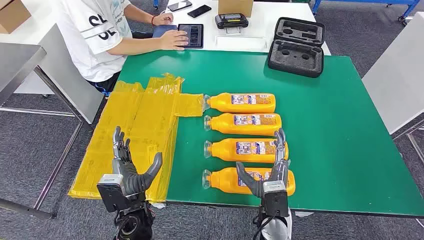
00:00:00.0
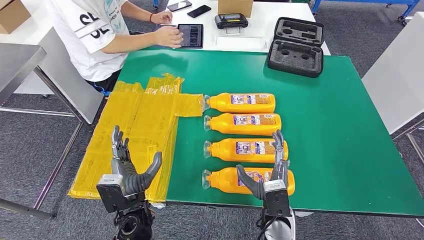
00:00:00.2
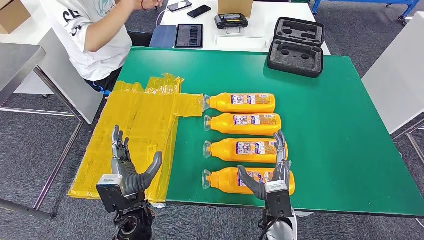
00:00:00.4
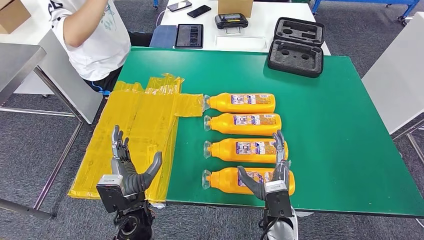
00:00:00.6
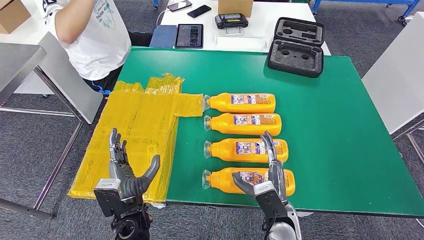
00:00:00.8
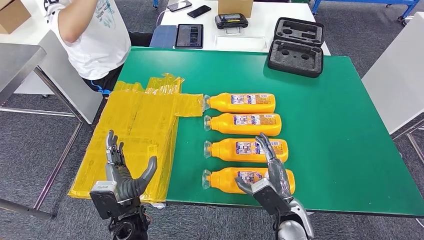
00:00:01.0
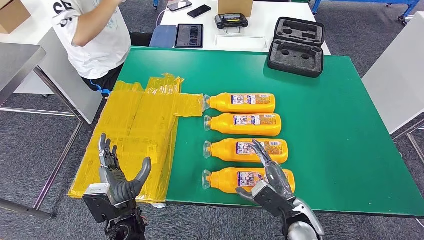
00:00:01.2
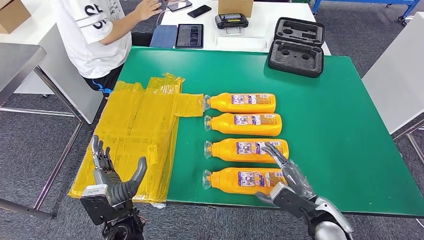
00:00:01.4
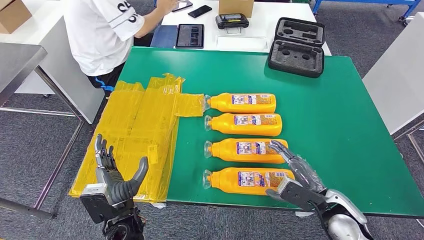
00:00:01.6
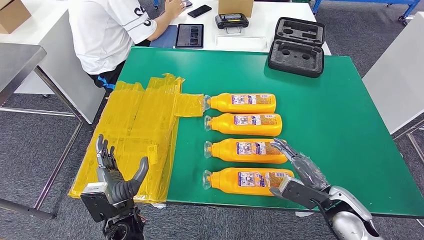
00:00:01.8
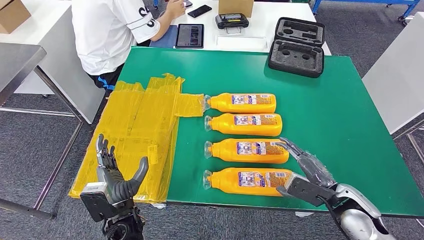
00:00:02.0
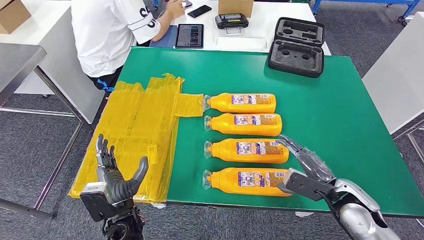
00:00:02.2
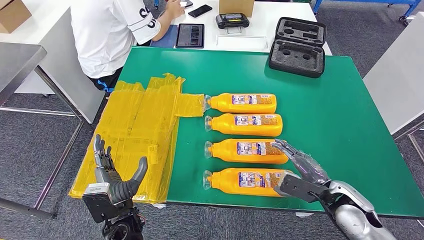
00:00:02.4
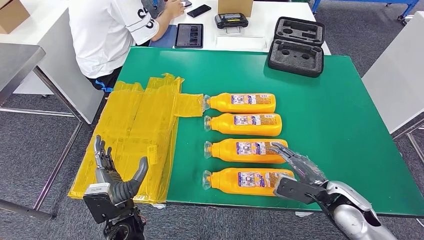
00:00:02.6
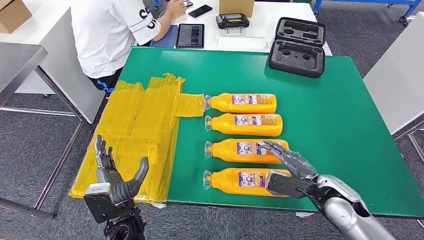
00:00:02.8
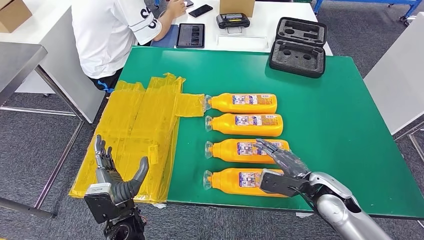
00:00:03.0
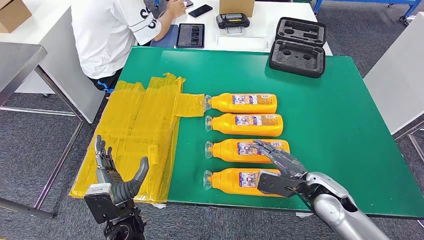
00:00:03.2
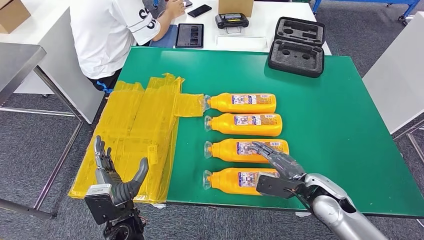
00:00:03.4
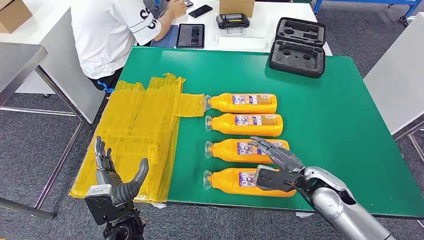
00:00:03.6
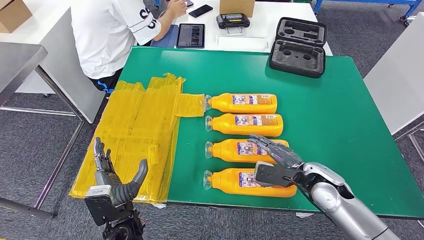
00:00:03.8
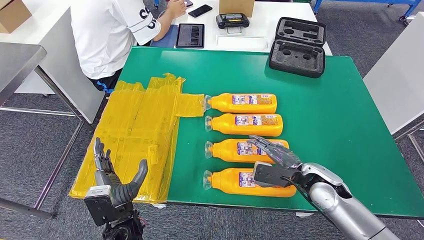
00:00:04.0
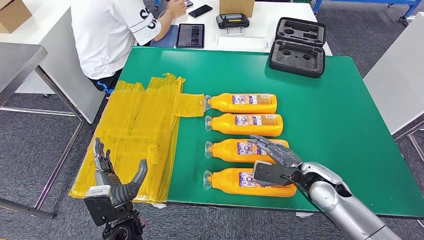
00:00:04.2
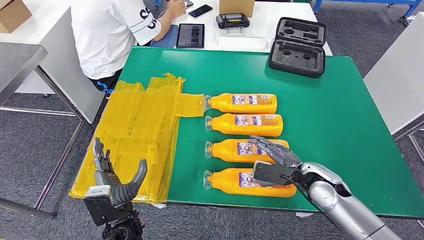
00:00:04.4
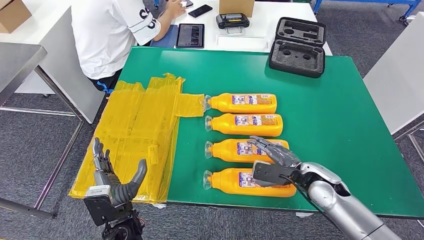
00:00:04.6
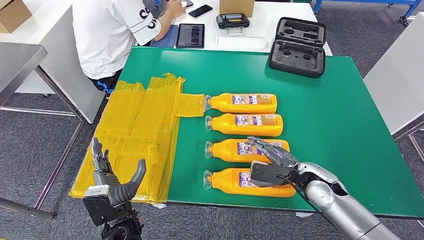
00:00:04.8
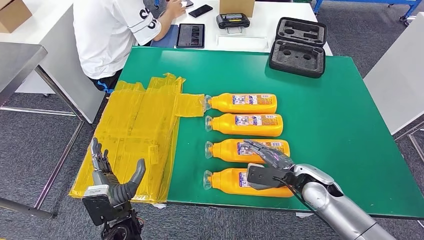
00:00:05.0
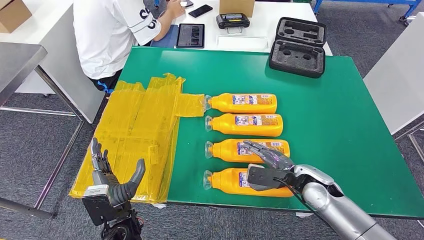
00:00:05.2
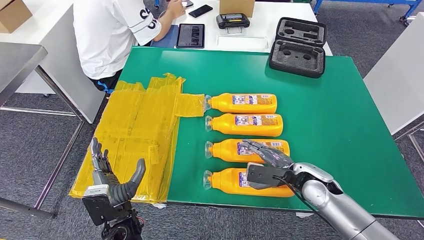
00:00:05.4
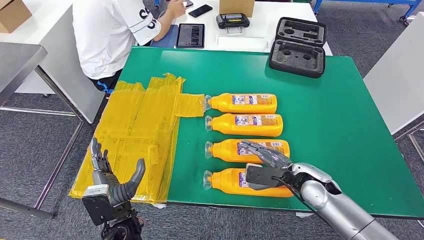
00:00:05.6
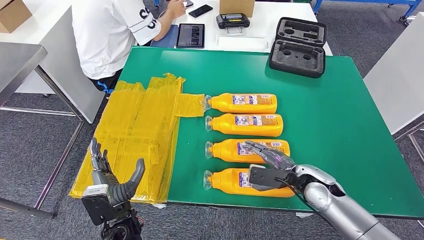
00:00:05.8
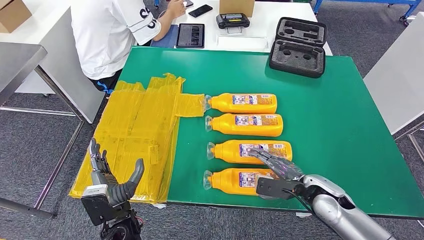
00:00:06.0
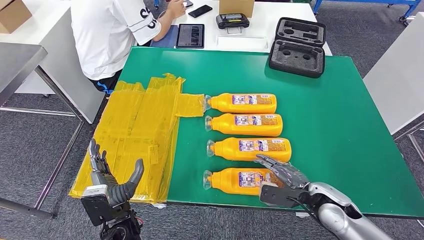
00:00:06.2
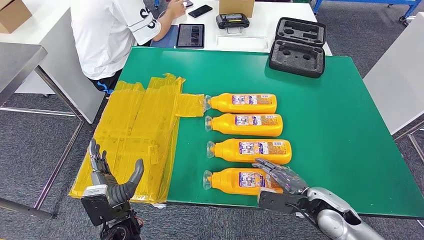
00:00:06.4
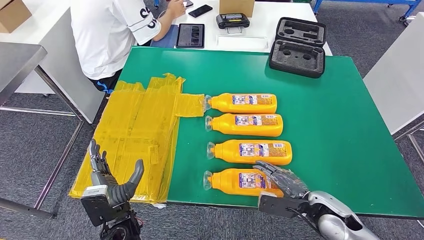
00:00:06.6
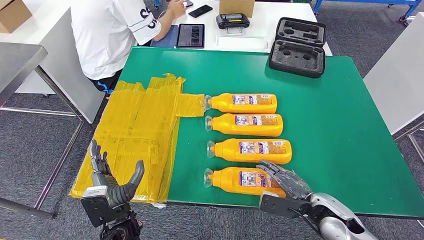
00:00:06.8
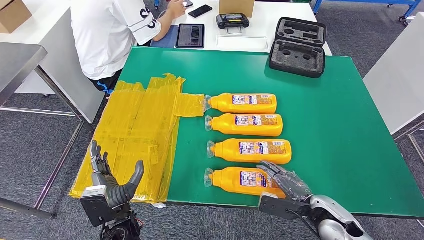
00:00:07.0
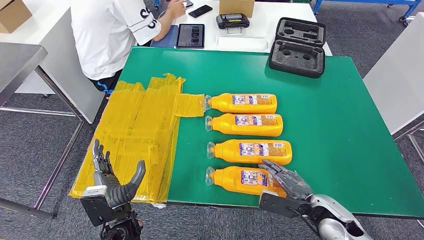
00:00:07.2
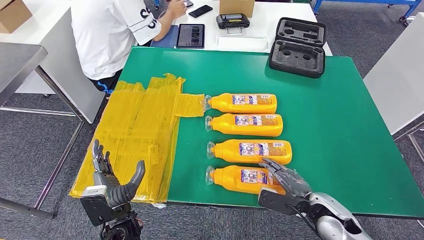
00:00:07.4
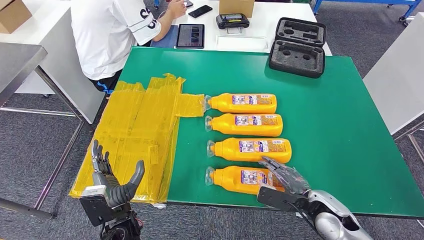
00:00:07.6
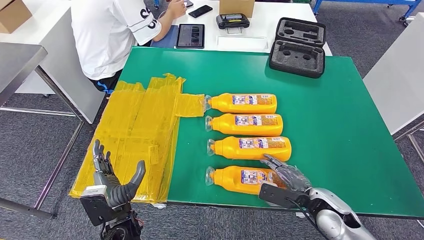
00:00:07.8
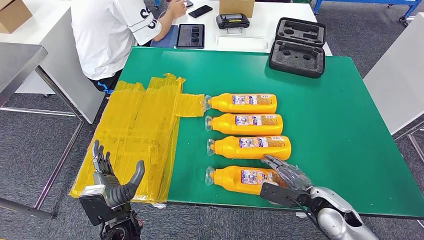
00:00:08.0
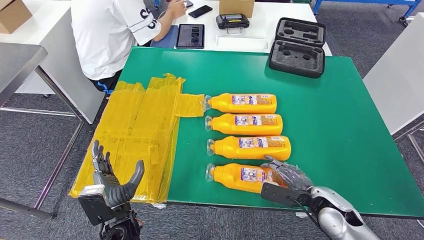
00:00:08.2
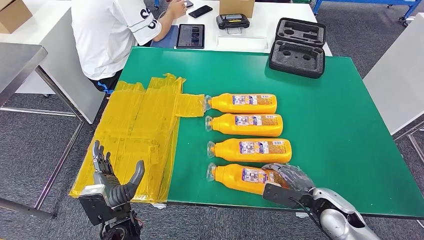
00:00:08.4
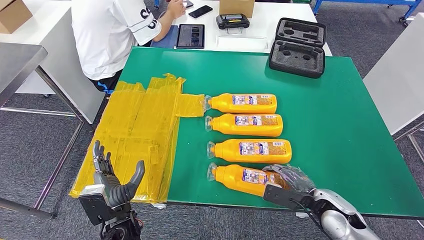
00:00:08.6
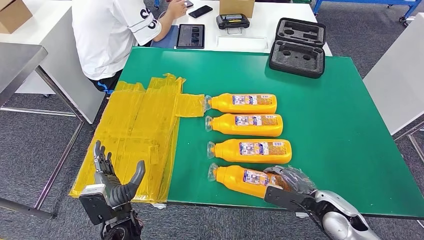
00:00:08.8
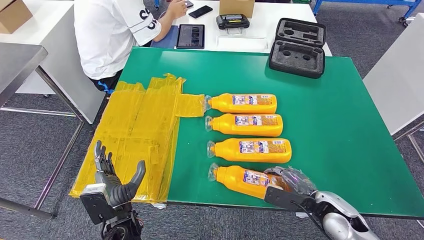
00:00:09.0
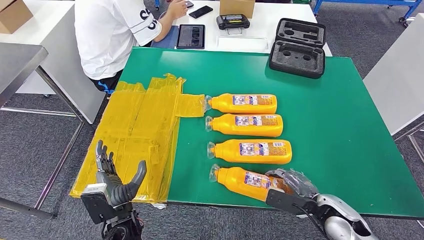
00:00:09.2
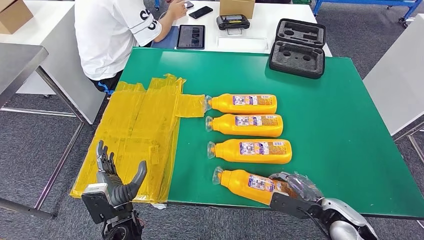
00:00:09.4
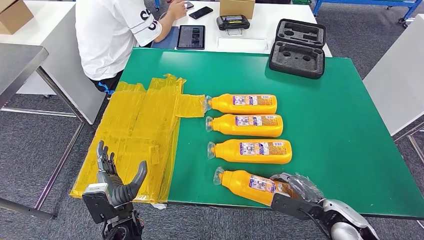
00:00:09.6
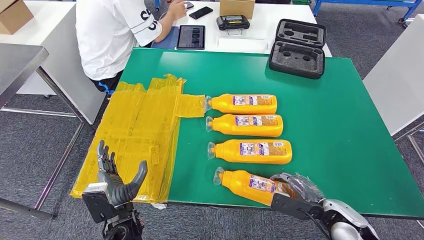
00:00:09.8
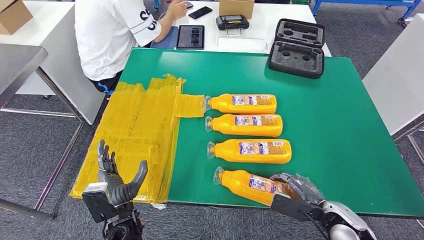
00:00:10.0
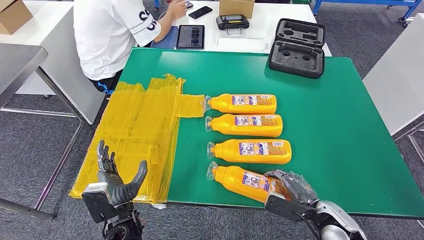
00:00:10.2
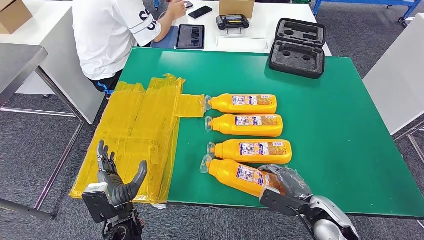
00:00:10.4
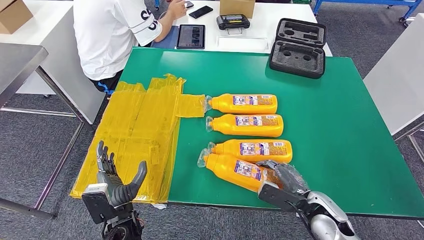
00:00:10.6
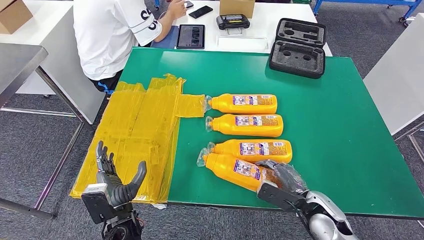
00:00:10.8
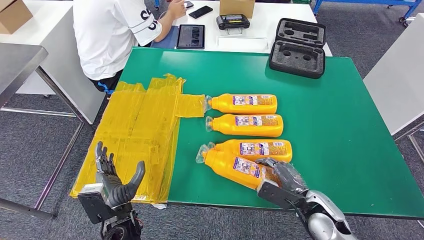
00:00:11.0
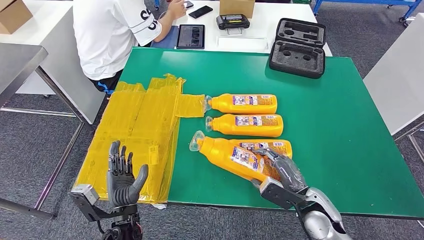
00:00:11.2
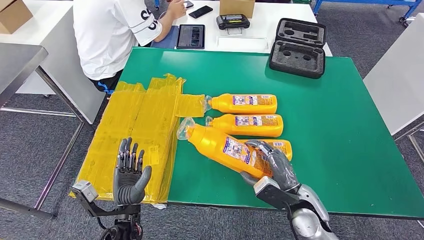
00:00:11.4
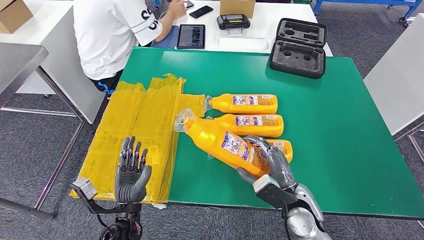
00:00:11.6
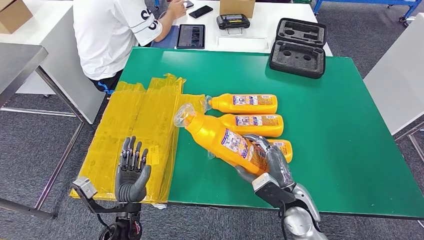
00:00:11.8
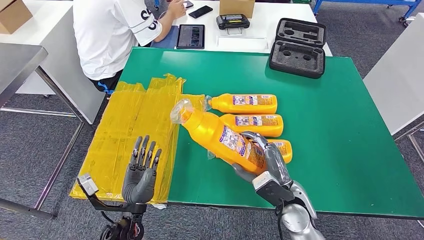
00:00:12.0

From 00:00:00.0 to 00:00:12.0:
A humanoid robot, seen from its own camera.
From 00:00:01.6 to 00:00:03.0: There are only small adjustments of the hands.
From 00:00:03.0 to 00:00:09.0: There are only small adjustments of the hands.
From 00:00:09.0 to 00:00:10.4: The hands move only a little.
From 00:00:10.4 to 00:00:12.0: The right hand goes about 10 cm to the left.

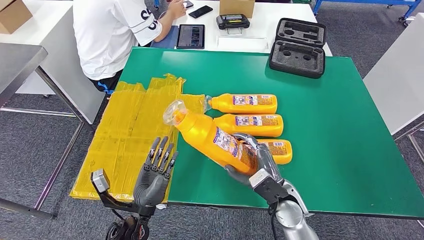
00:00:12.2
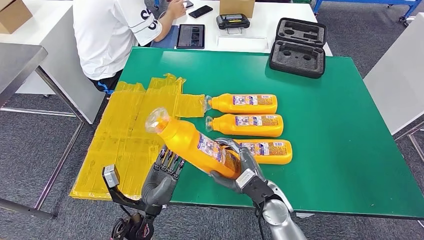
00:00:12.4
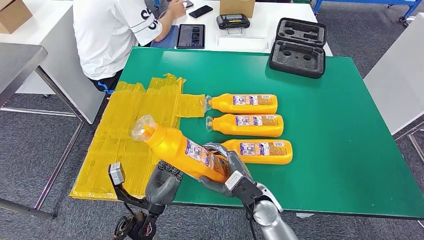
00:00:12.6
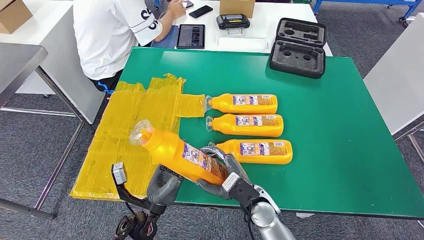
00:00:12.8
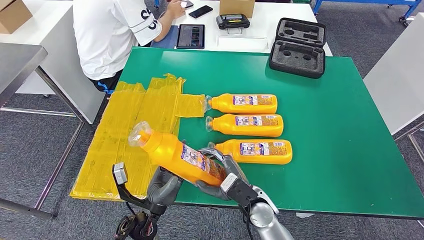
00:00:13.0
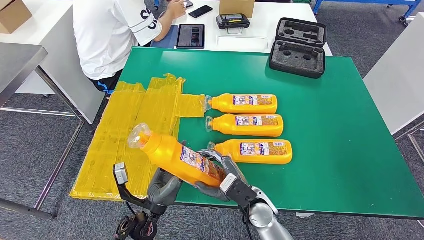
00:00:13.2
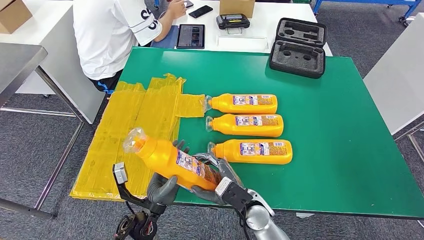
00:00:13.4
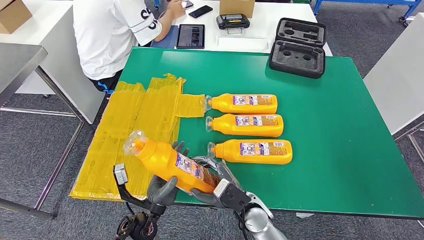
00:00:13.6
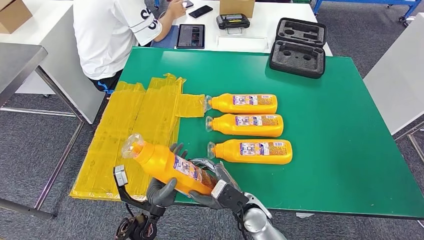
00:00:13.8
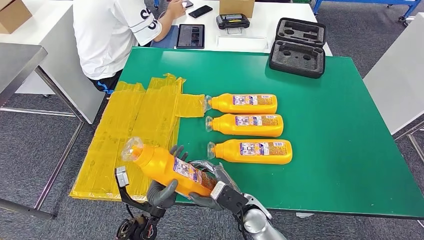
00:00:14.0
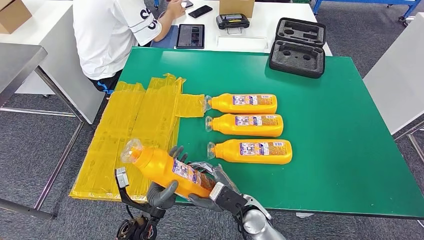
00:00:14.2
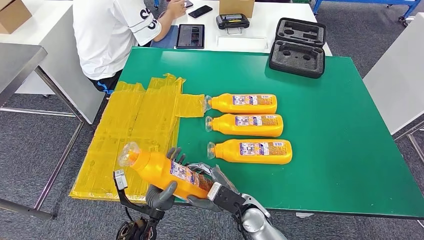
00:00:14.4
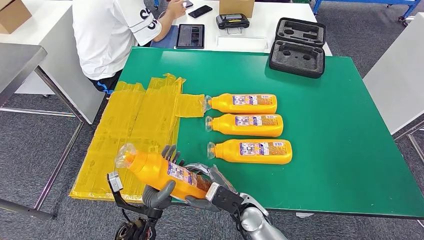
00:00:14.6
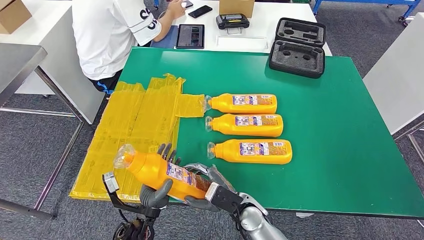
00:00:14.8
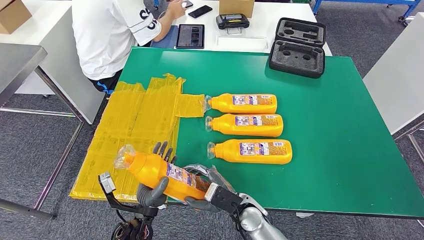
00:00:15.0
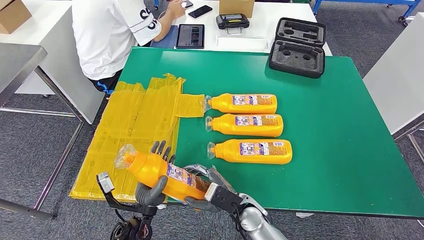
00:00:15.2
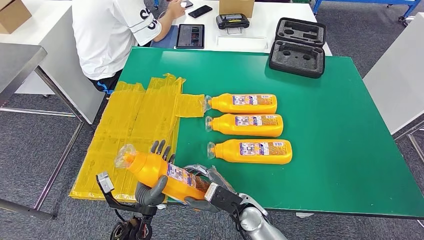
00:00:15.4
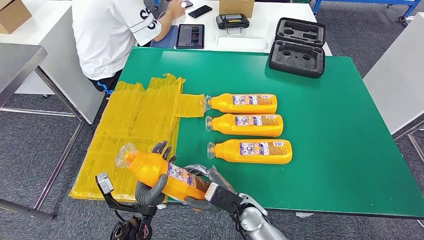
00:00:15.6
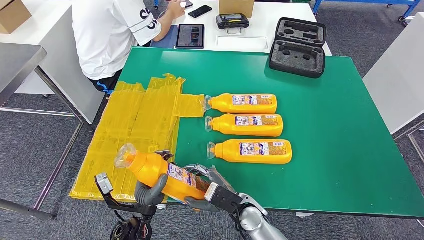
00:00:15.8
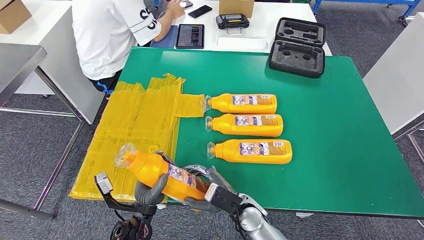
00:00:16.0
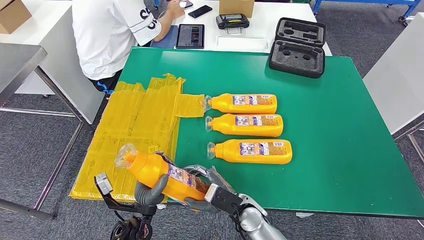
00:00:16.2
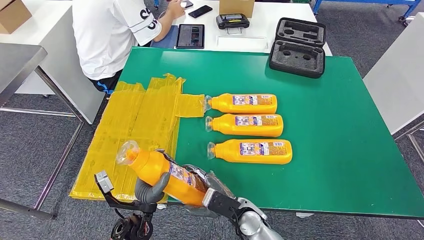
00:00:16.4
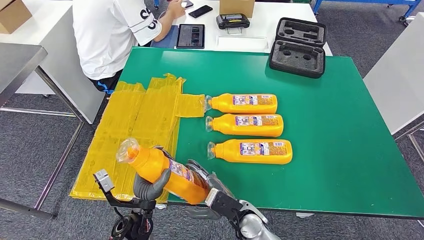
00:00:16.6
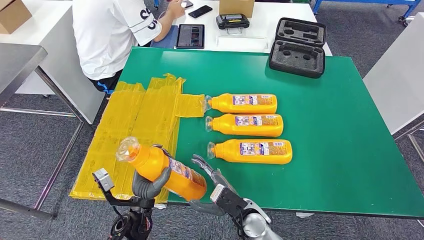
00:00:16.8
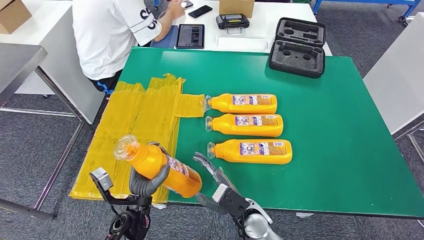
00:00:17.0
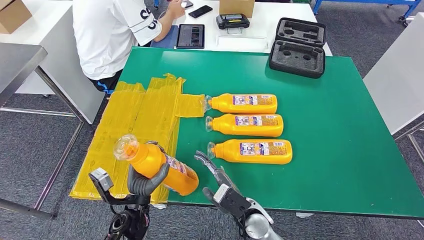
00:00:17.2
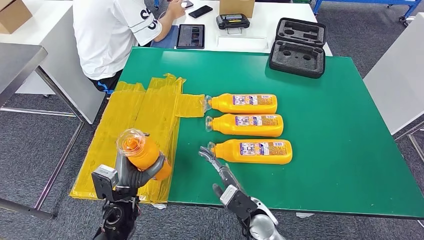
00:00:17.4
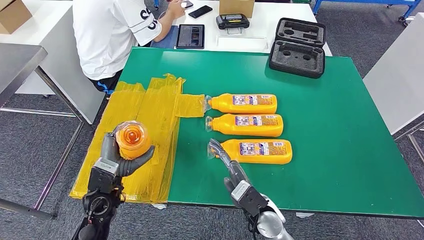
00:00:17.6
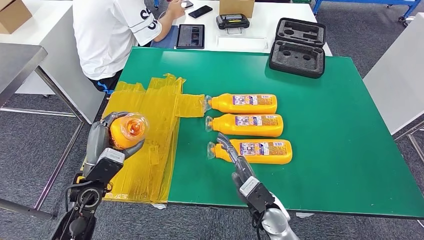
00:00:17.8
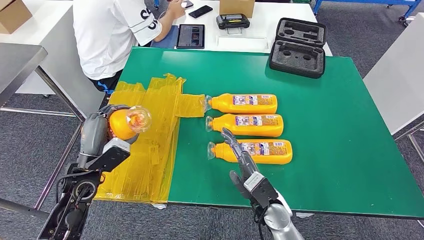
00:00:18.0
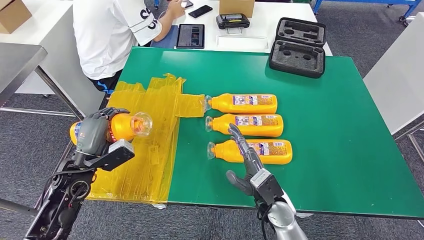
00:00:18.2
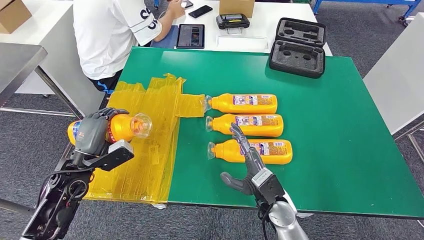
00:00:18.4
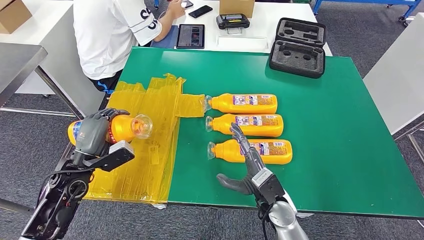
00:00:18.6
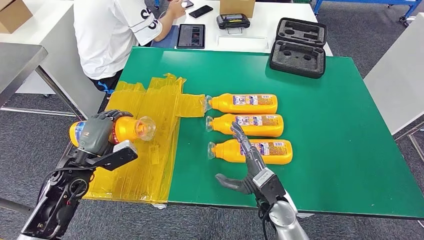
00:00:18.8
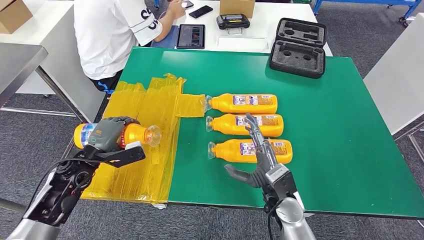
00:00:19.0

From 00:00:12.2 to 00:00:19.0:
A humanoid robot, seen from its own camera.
From 00:00:12.2 to 00:00:13.6: The right hand goes approximately 10 cm to the left.
From 00:00:13.6 to 00:00:15.0: The hands move only a little.
From 00:00:15.0 to 00:00:16.2: Both hands stay put.
From 00:00:16.2 to 00:00:17.6: The left hand shifts some 10 cm to the left, upward and forward.
From 00:00:17.6 to 00:00:19.0: The right hand shifts by about 5 cm; the left hand heads to the left and forward, covering about 10 cm.
